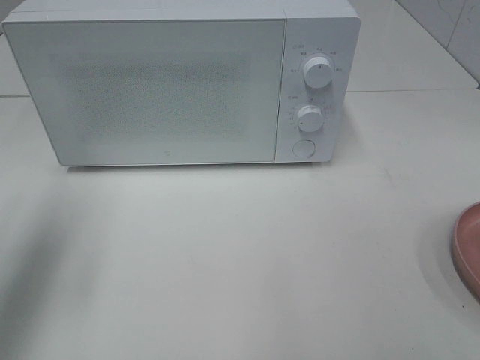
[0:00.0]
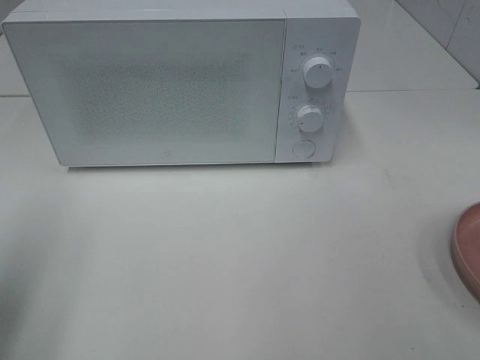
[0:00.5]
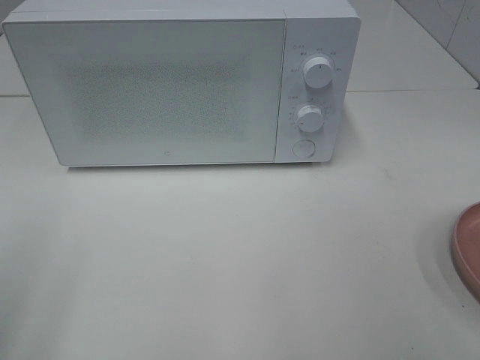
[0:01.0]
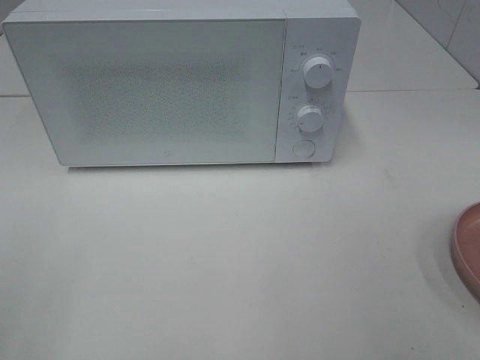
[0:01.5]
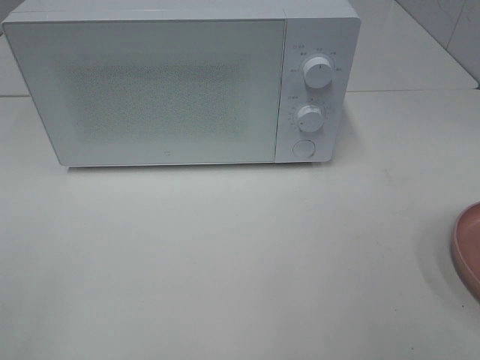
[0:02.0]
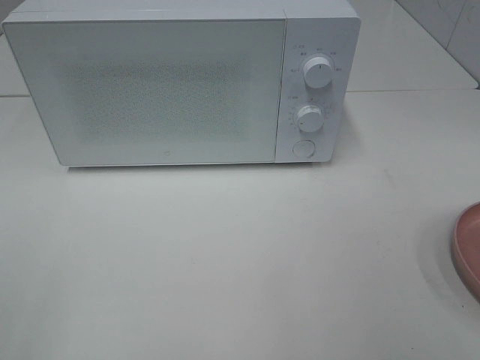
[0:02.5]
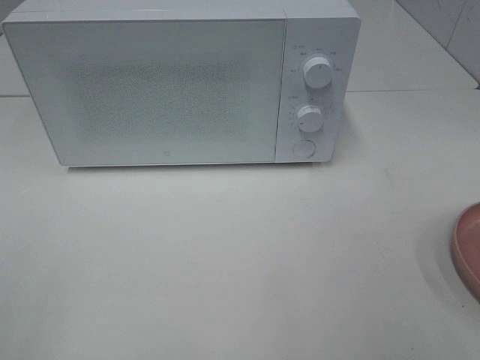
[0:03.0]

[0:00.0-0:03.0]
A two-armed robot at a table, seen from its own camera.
Task of the whole recording: Heat the burger.
0:00.0 to 0:01.5: The left gripper goes about 20 cm backward.

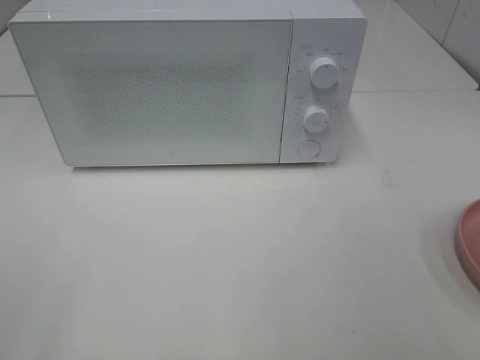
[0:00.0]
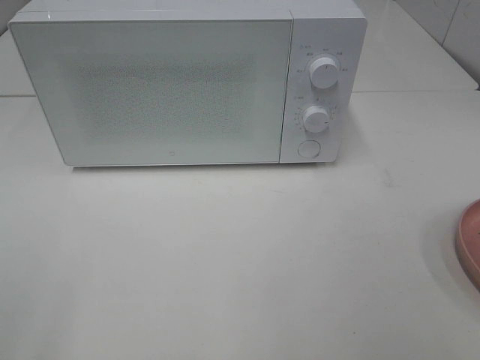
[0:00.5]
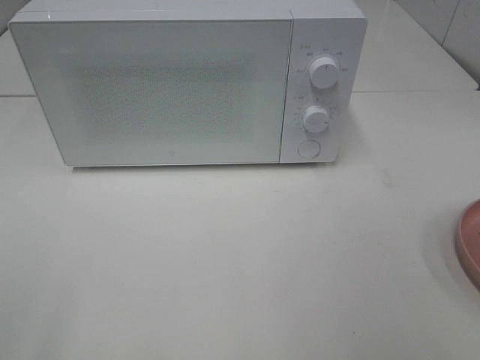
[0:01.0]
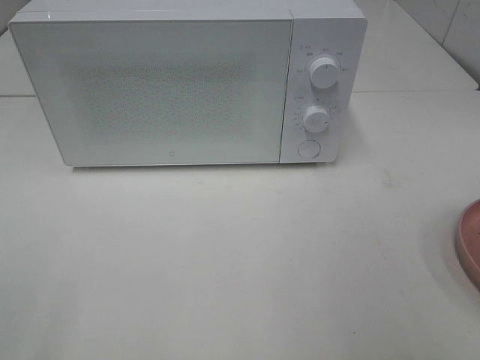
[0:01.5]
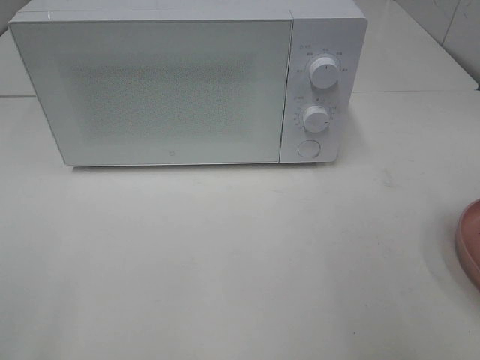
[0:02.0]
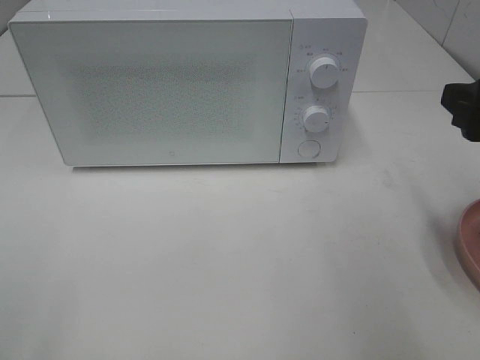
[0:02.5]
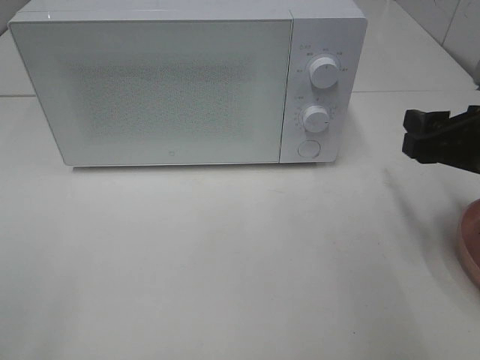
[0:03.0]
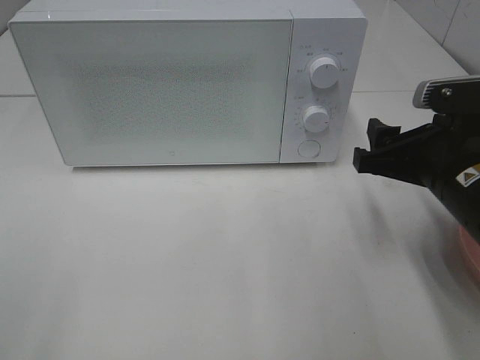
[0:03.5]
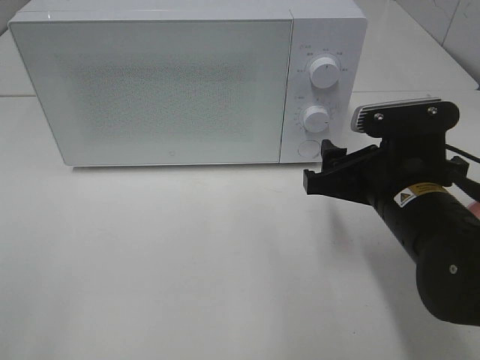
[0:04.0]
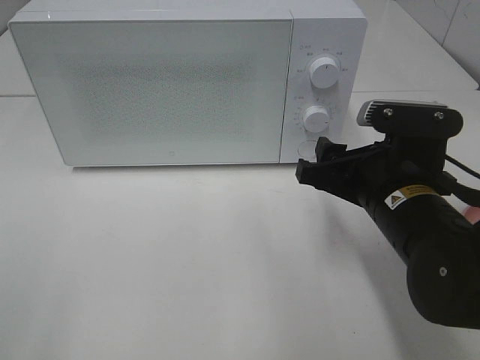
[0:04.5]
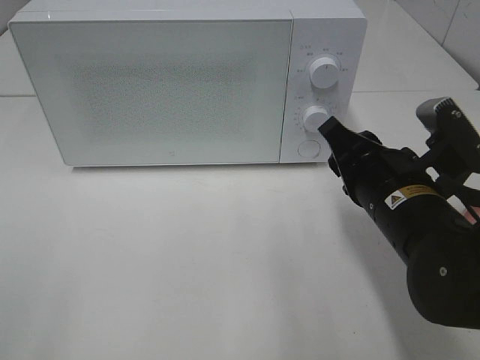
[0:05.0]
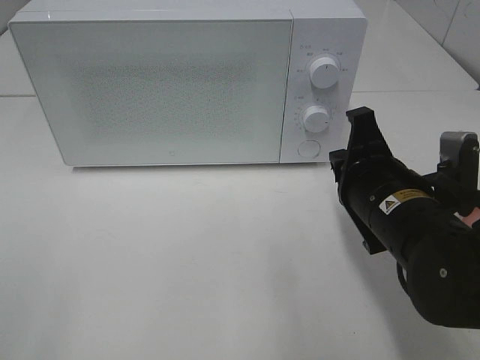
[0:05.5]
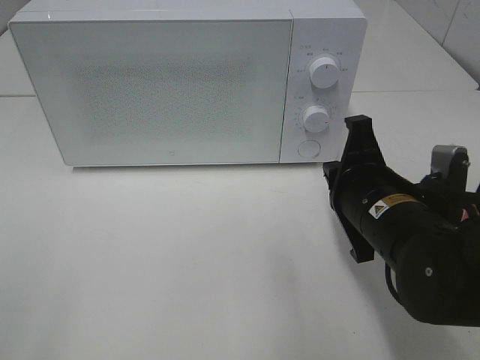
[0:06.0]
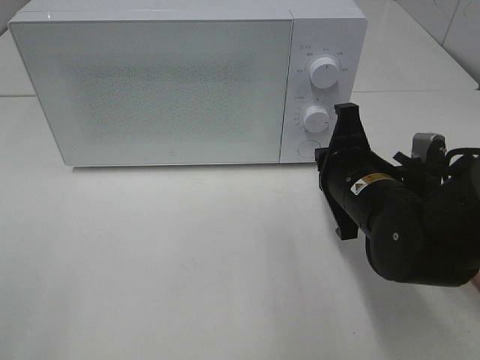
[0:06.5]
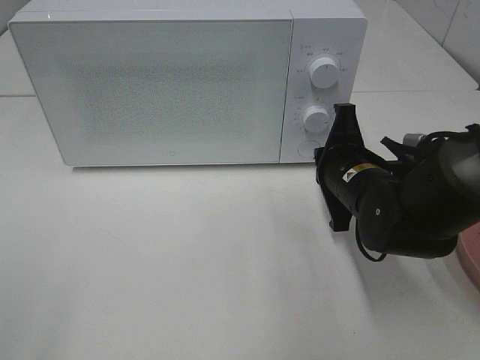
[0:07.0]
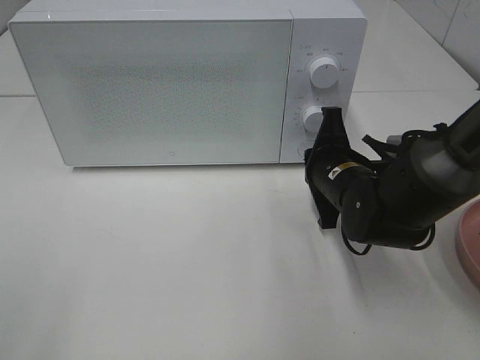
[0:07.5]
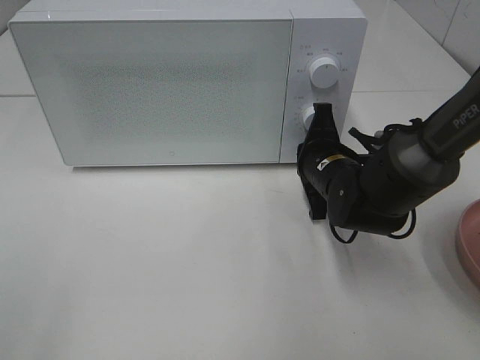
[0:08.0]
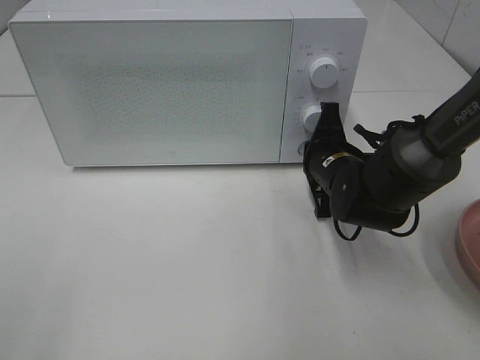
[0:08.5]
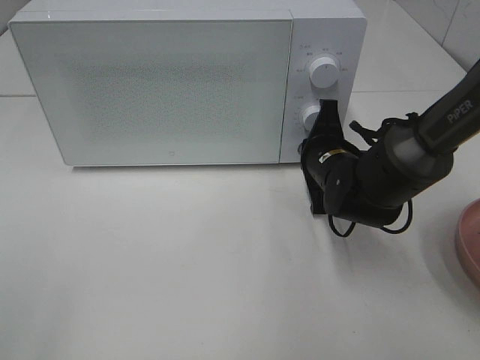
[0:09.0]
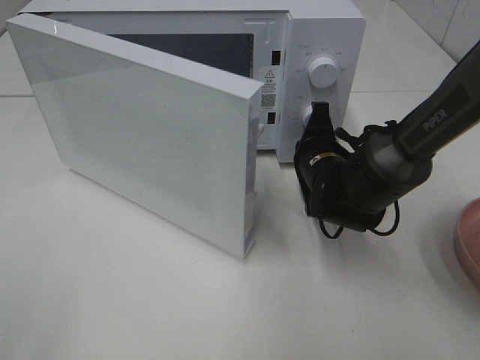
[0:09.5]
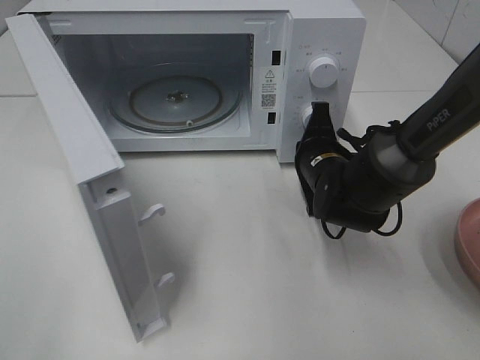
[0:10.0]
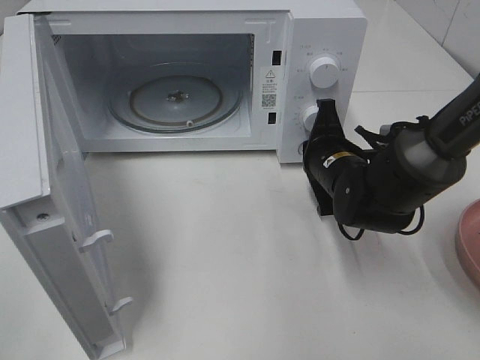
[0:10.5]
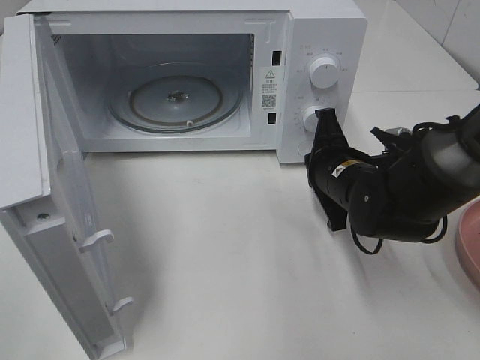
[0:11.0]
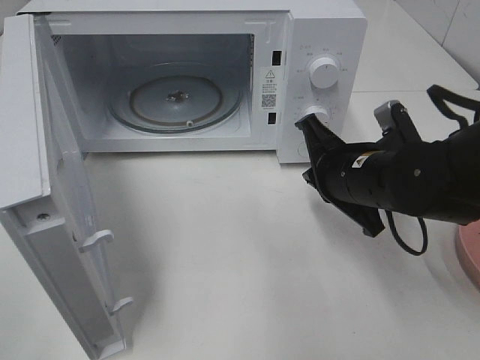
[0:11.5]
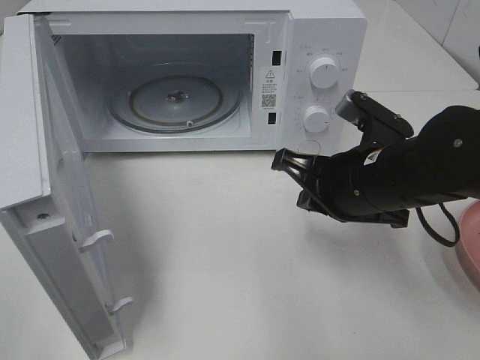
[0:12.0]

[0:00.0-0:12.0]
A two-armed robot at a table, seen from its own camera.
Task of the whole recording: Heat the burger.
Step, 0:00.0 to 0:10.5: Right hand: press the switch.
0:02.0 to 0:04.0: The right gripper heads downward, to the left and forward, covering some 20 cm.
0:04.0 to 0:06.0: The right gripper closes.
0:06.0 to 0:08.0: The right gripper moves forward and downward, roughly 10 cm.
0:10.0 to 0:12.0: The right gripper travels backward and upward by roughly 15 cm.

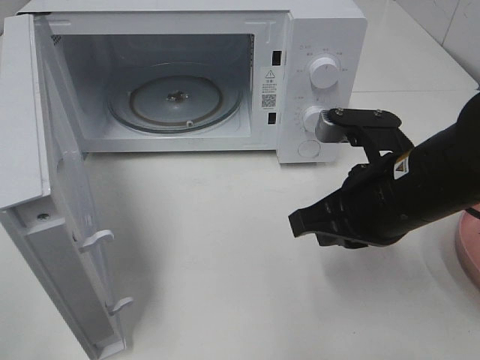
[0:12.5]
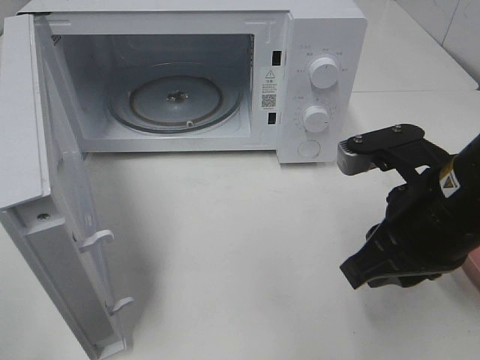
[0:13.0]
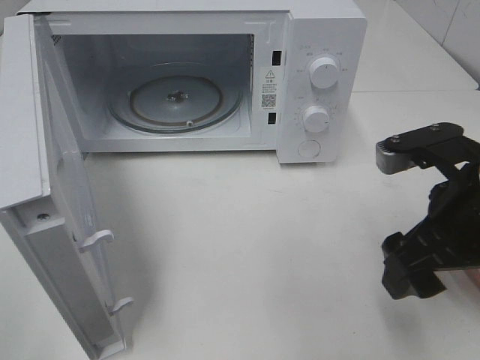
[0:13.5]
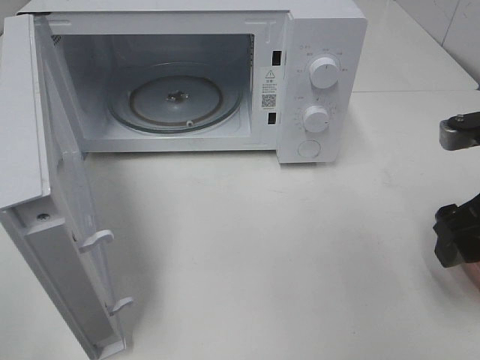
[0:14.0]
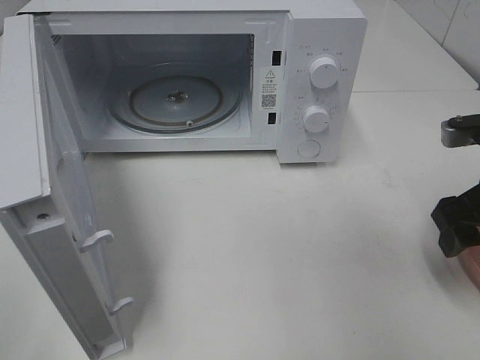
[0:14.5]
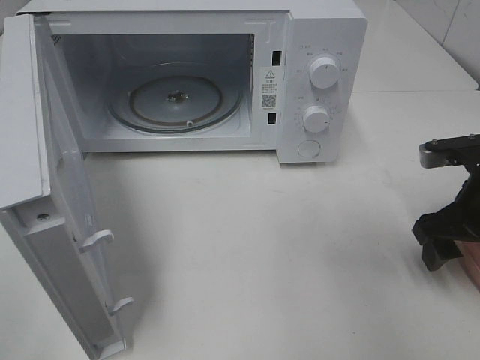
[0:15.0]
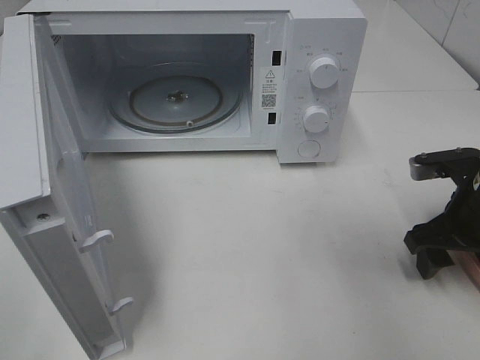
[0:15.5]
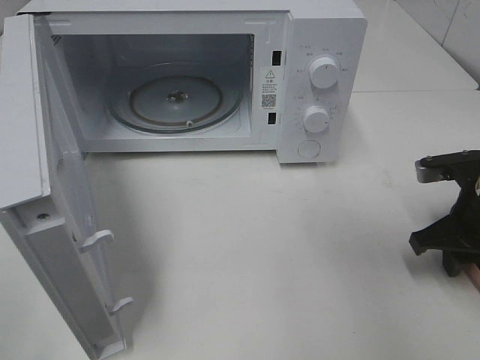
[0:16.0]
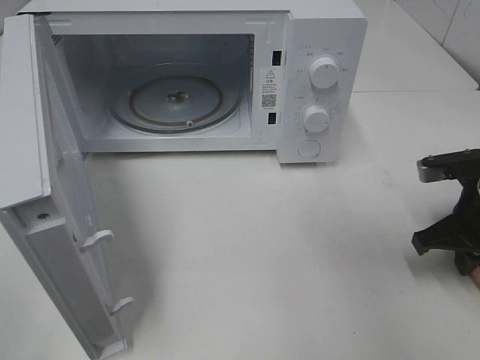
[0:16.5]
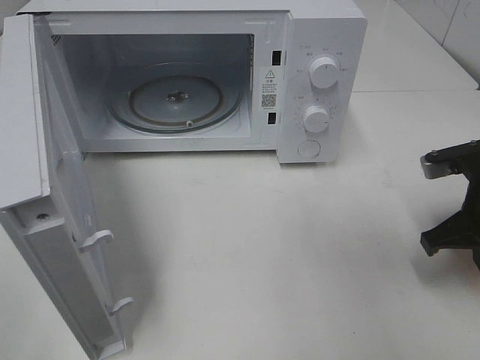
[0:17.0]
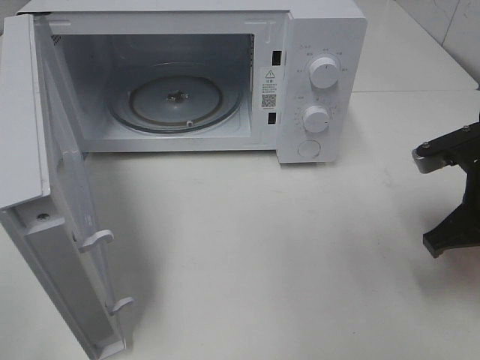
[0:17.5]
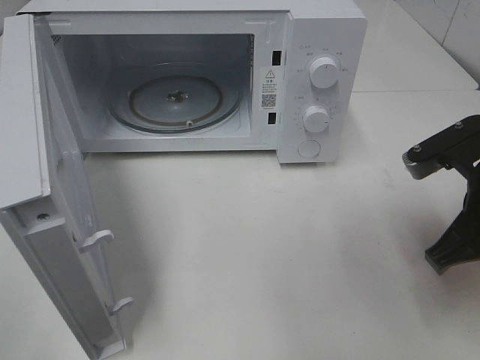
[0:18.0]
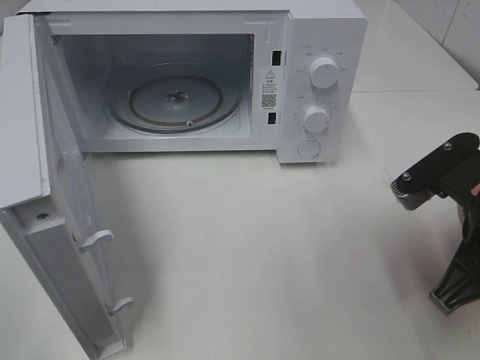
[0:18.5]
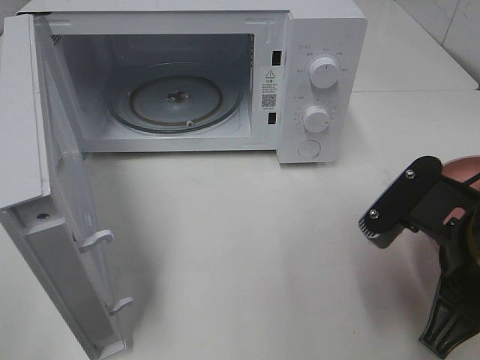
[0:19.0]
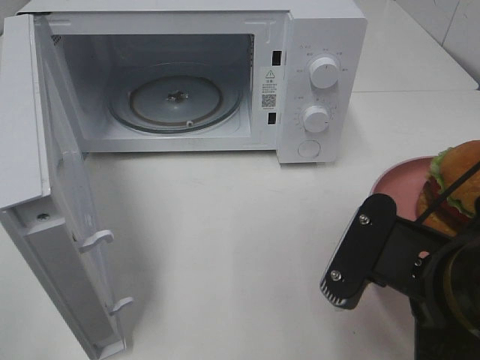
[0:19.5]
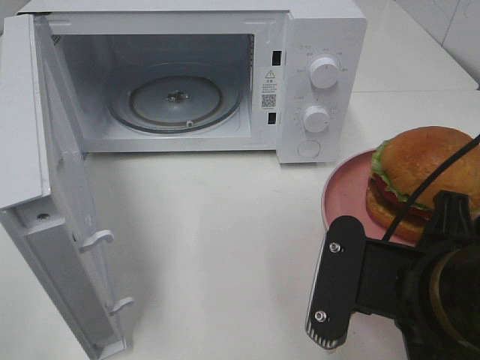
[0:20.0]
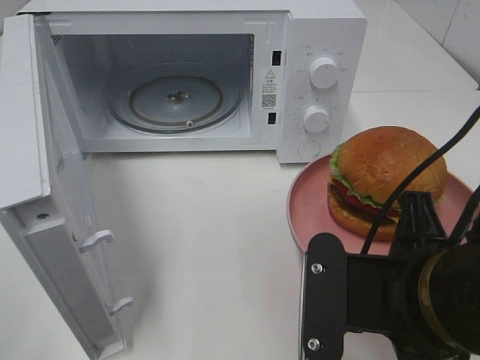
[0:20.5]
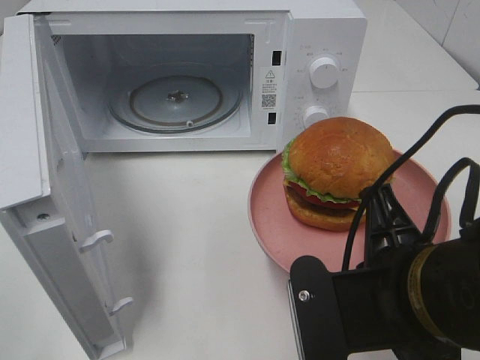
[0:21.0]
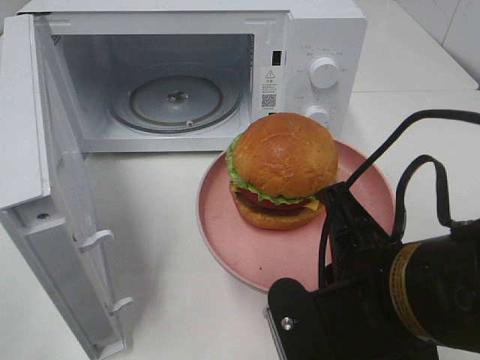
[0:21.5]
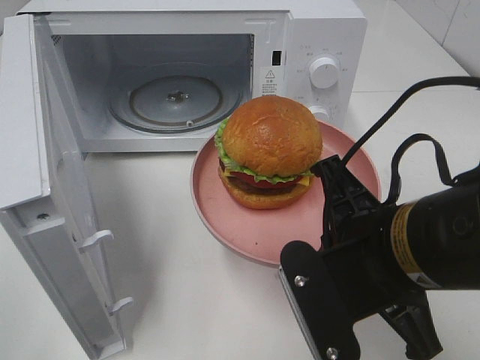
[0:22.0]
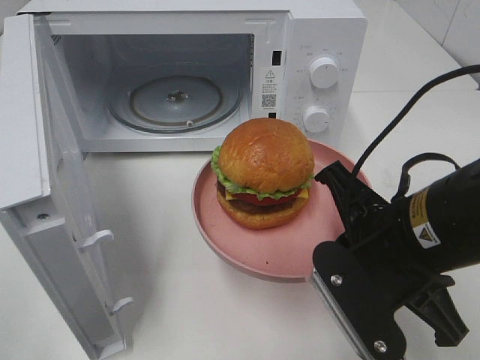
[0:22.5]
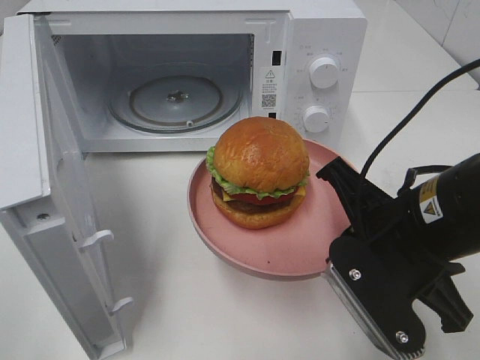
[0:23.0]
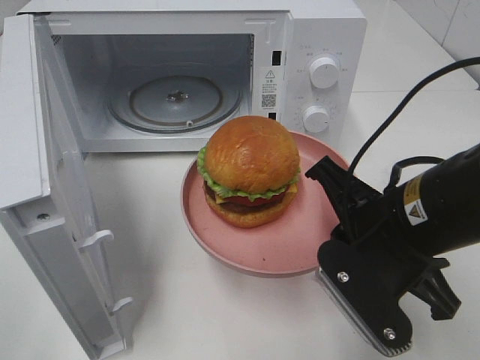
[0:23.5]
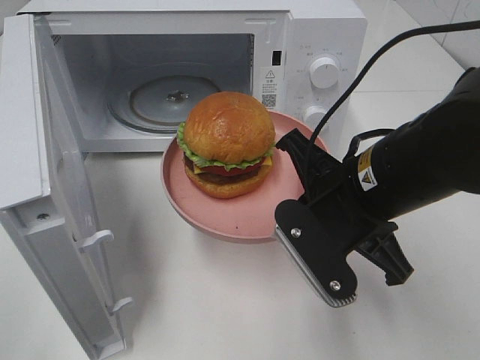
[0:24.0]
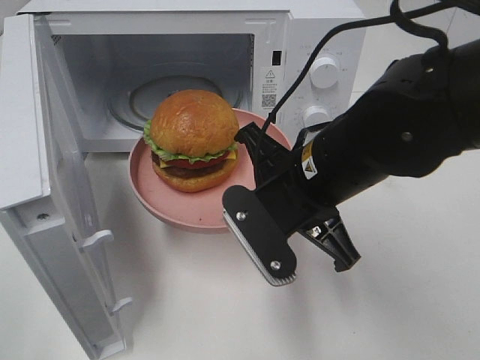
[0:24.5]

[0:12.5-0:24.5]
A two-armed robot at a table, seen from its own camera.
Task of the whole recording: Heat the burger.
Step, 0:12.5 to 0:16.5: Right hand: grab the plate with the hamburger.
0:12.5 to 0:14.5: The right gripper goes some 15 cm to the right, and opens.
0:14.5 to 0:16.5: The right gripper shifts approximately 5 cm downward, and closes.
0:16.5 to 0:18.5: The right gripper goes roughly 15 cm backward, to the left and upward.
0:18.5 to 0:20.5: The right gripper is displaced to the left and backward by some 10 cm.
0:20.5 to 0:22.5: The right gripper heads forward, covering roughly 5 cm.
0:22.5 to 0:24.5: The right gripper heads forward and to the left, covering about 10 cm.
